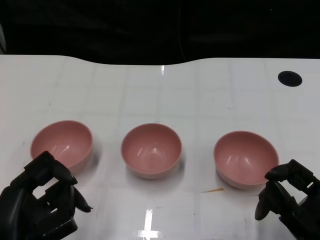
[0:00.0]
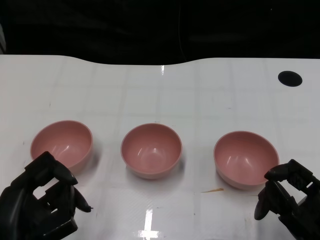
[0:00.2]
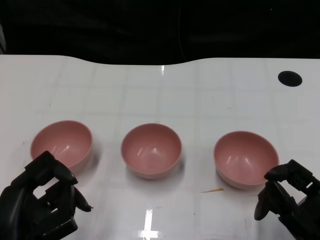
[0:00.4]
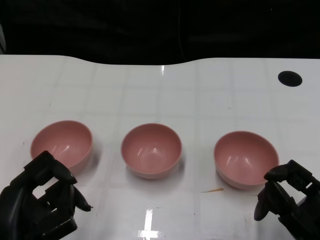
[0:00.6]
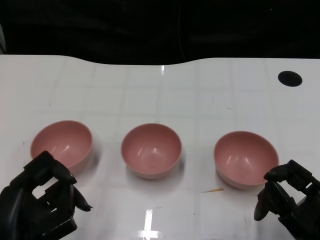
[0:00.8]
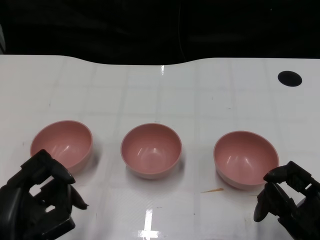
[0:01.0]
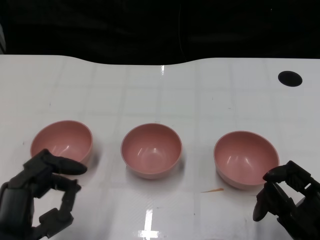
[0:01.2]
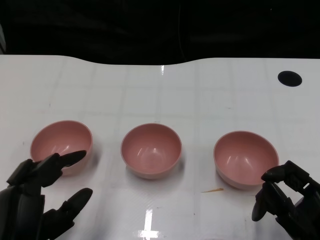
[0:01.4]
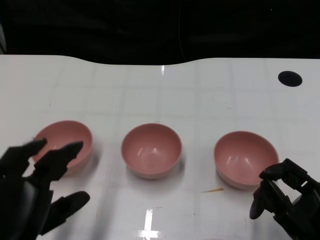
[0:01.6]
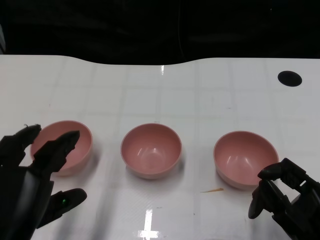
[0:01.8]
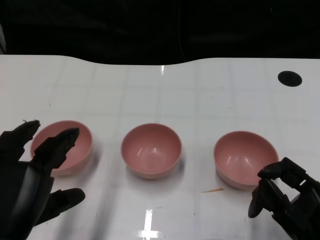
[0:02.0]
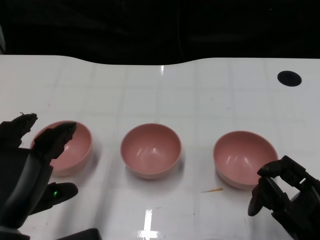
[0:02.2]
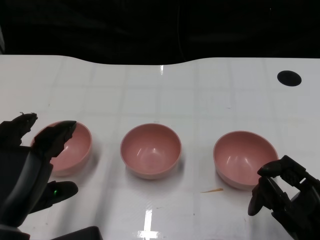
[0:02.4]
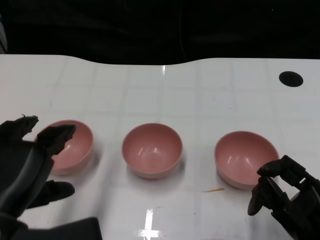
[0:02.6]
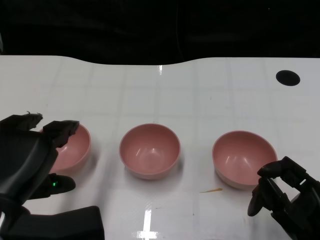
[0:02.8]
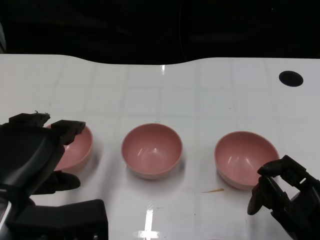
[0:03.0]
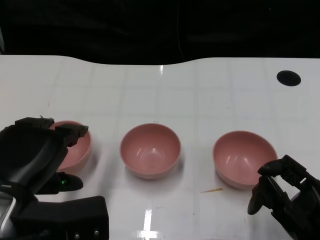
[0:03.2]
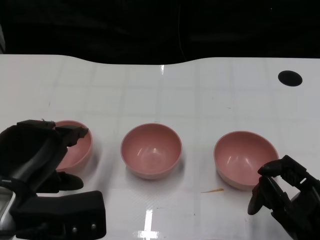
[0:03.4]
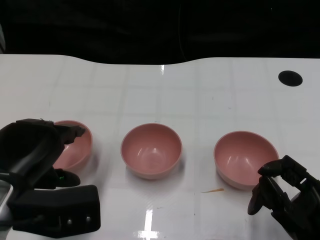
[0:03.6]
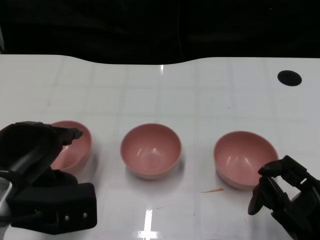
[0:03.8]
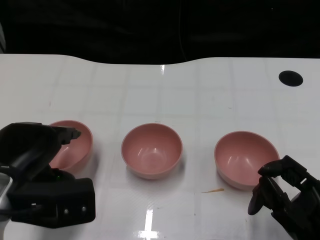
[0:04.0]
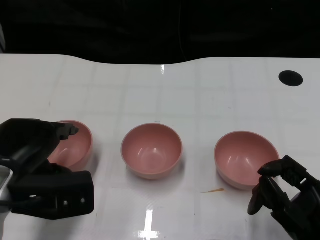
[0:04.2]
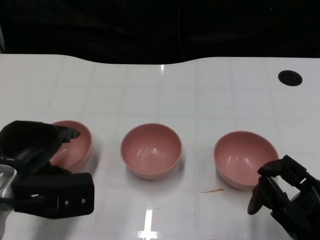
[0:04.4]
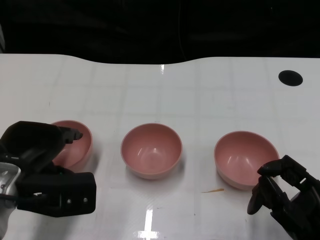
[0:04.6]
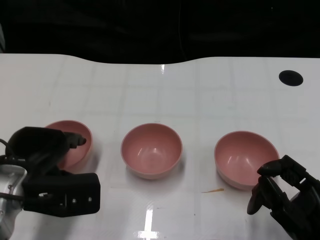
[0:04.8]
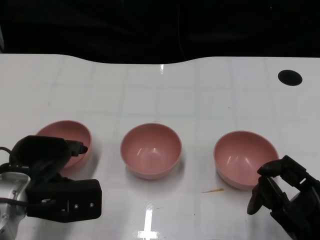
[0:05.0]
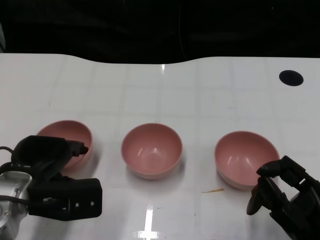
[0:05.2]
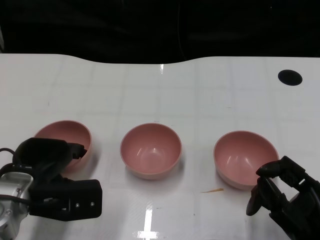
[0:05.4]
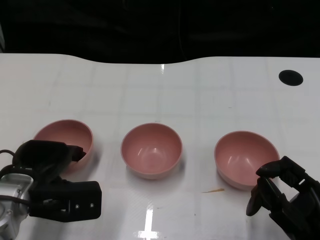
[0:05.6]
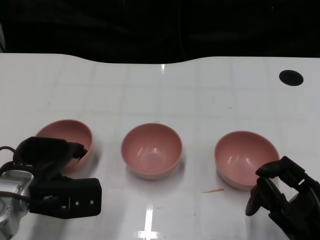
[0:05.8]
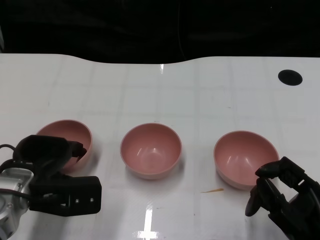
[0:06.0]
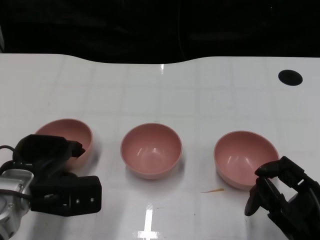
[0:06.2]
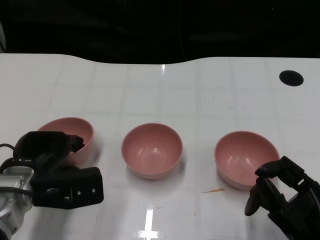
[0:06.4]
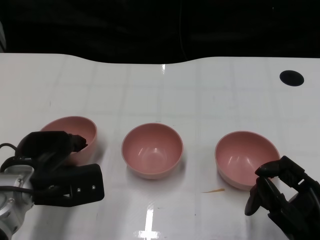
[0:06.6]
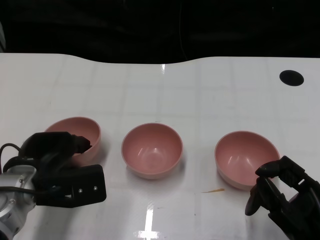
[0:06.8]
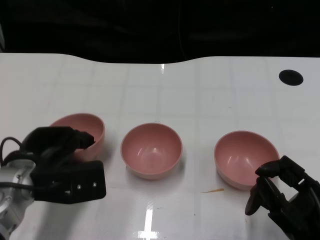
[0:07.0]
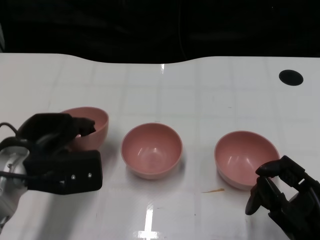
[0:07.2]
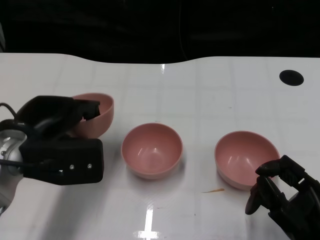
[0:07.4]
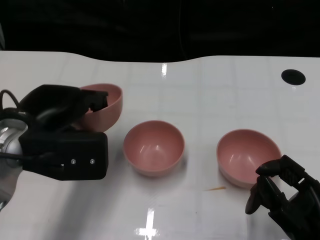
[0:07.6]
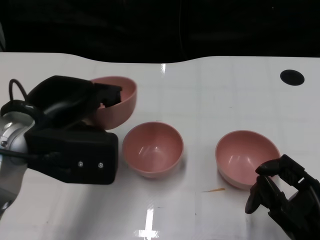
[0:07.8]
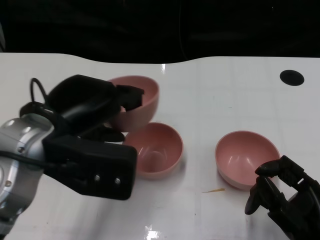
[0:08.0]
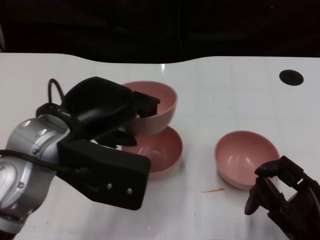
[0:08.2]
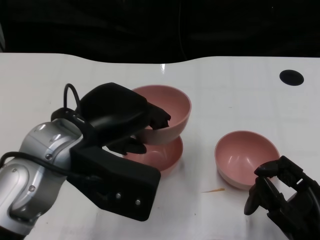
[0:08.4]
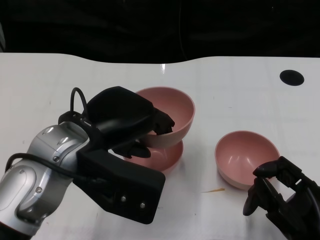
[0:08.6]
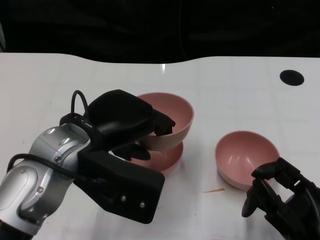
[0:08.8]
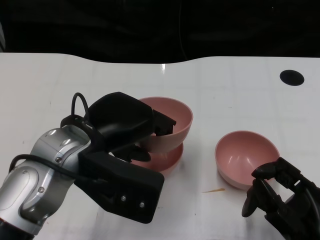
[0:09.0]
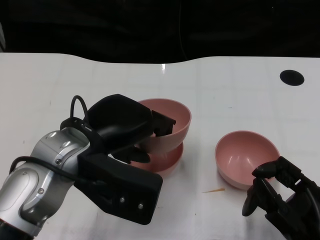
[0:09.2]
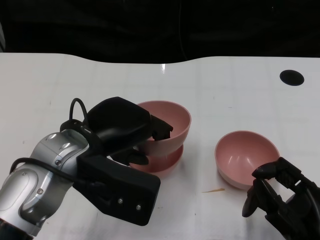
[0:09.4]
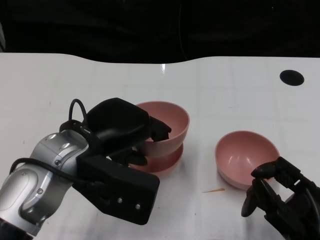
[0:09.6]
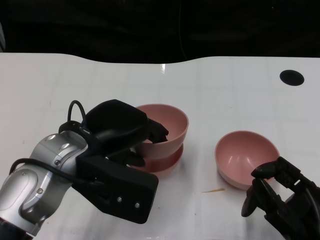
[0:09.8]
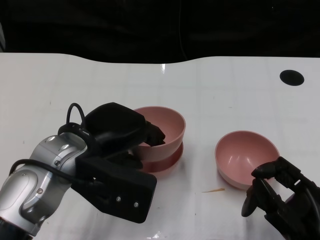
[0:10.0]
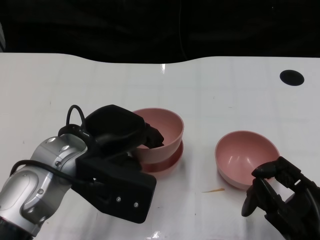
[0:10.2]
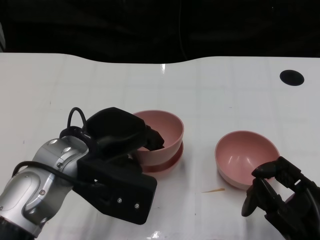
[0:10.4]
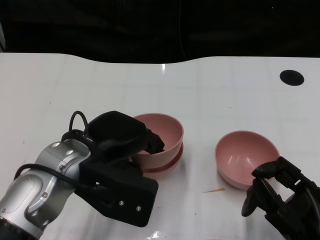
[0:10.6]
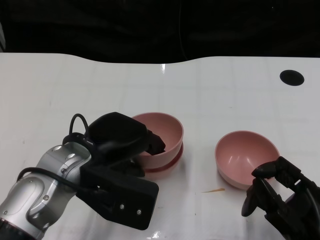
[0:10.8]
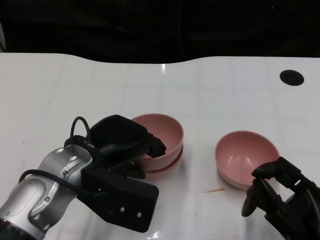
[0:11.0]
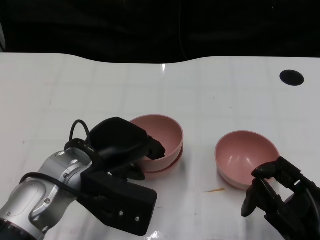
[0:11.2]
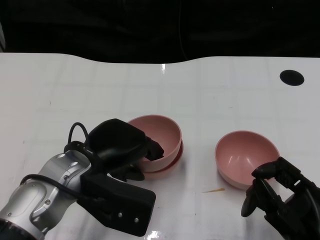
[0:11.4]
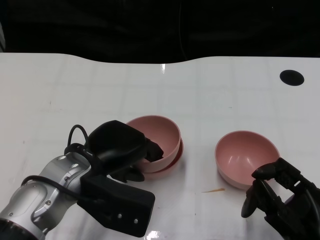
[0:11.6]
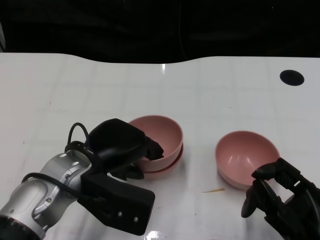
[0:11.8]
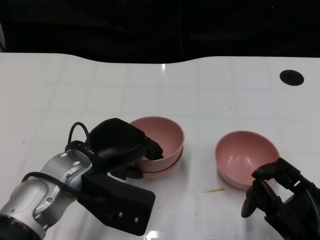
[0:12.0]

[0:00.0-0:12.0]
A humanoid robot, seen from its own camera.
Task of the whole recording: Pick up the bowl on one side of the table and place it on top of the middle bowl, then pick up the bowl on the other side of the table and place it on top of the middle bowls.
Step, 0:01.2 to 0:06.6: Grasp the bowl on the left with the left gripper.
0:01.6 to 0:03.0: The left hand heads upward, covering roughly 5 cm.
0:03.0 to 0:04.4: The left hand heads forward, covering some 5 cm.
0:04.4 to 0:06.0: The left hand shifts by roughly 5 cm.
0:06.0 to 0:07.6: The left hand shifts some 10 cm upward.
0:07.6 to 0:09.0: The left hand heads to the right, covering some 5 cm.
0:09.0 to 0:10.4: The hands stay close to where they were, moving slightly.
0:10.4 to 0:12.0: The hands move only a little.

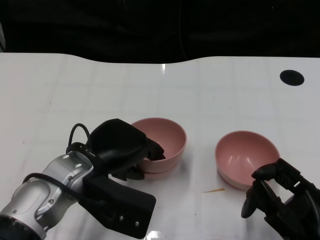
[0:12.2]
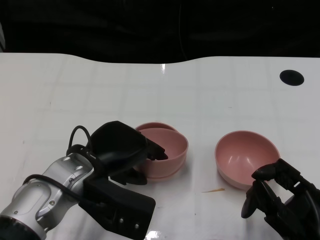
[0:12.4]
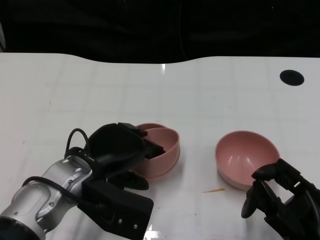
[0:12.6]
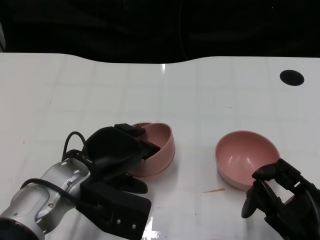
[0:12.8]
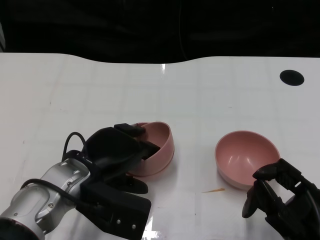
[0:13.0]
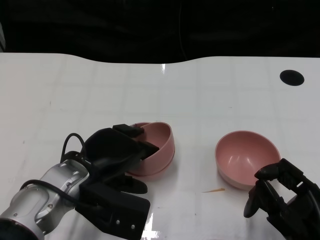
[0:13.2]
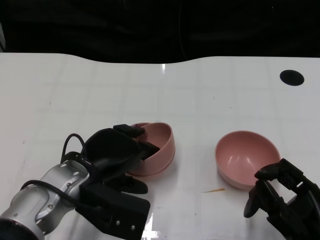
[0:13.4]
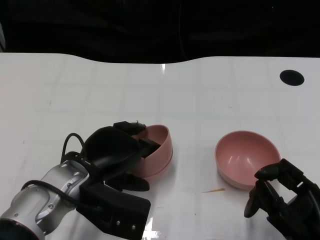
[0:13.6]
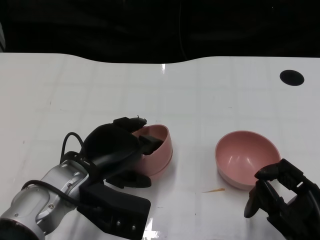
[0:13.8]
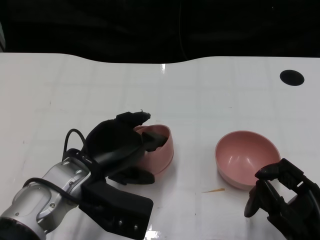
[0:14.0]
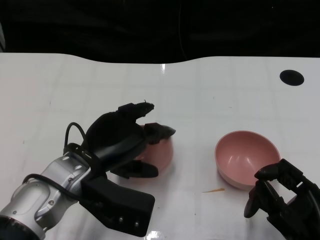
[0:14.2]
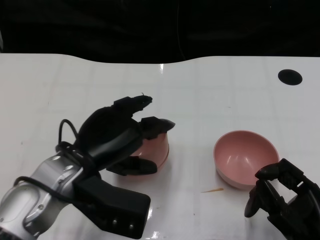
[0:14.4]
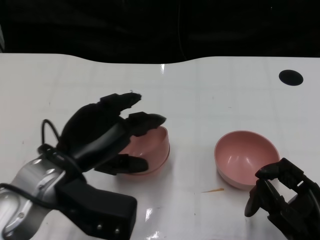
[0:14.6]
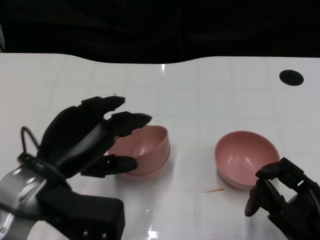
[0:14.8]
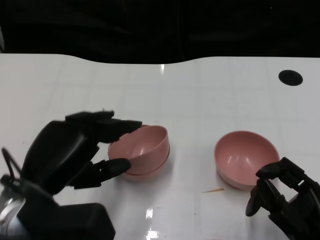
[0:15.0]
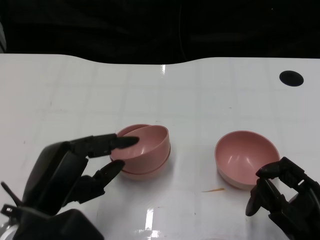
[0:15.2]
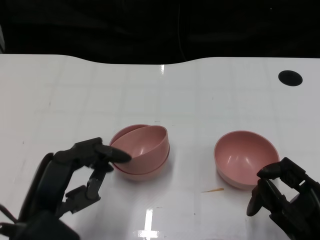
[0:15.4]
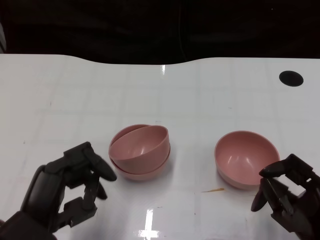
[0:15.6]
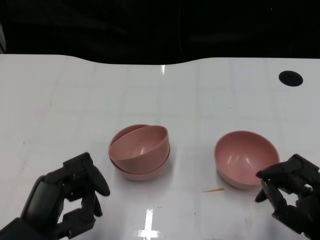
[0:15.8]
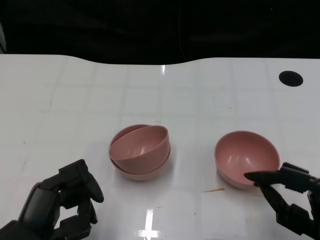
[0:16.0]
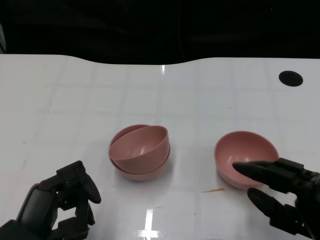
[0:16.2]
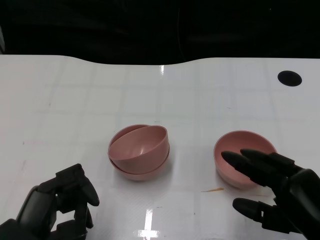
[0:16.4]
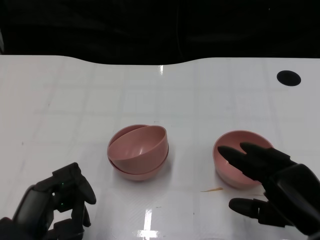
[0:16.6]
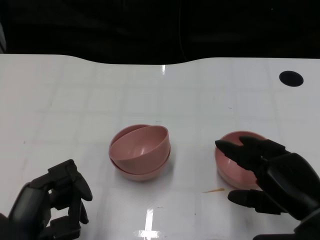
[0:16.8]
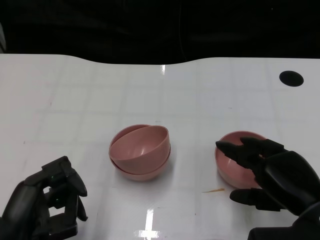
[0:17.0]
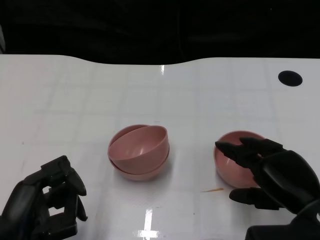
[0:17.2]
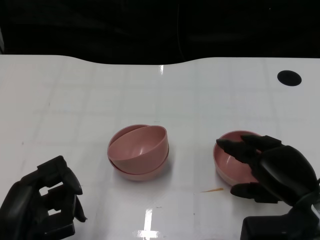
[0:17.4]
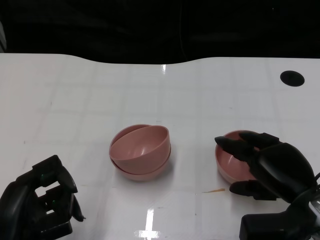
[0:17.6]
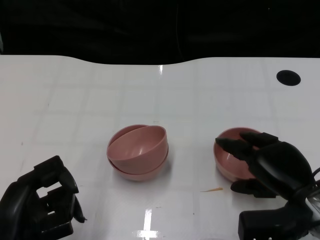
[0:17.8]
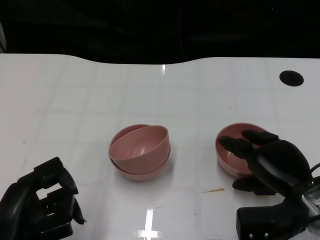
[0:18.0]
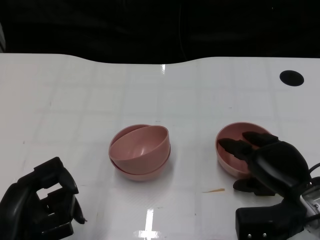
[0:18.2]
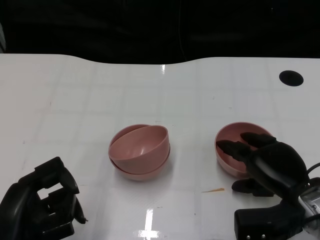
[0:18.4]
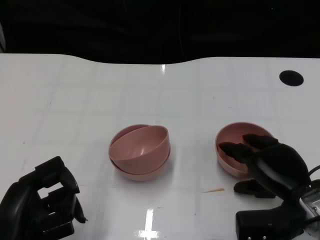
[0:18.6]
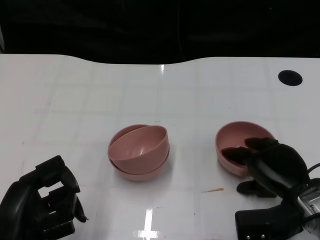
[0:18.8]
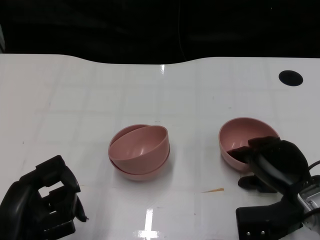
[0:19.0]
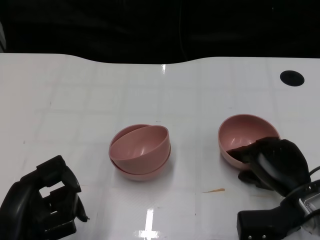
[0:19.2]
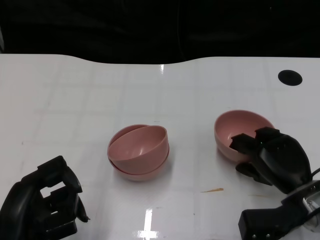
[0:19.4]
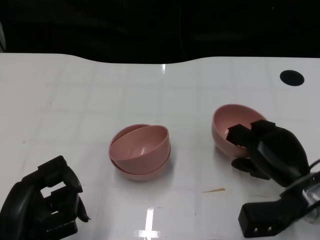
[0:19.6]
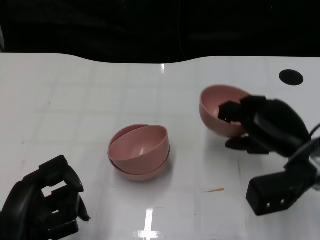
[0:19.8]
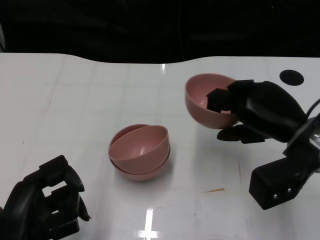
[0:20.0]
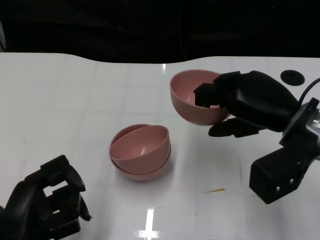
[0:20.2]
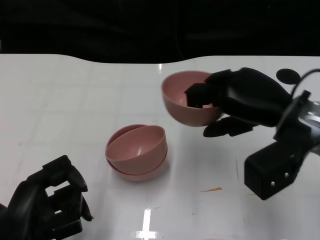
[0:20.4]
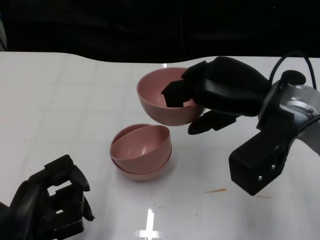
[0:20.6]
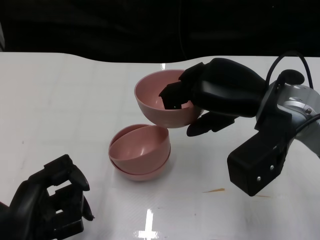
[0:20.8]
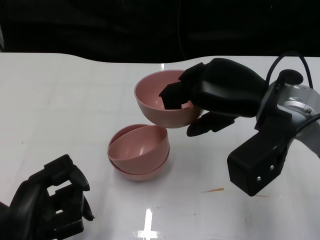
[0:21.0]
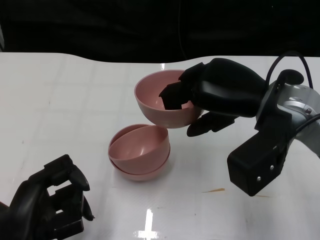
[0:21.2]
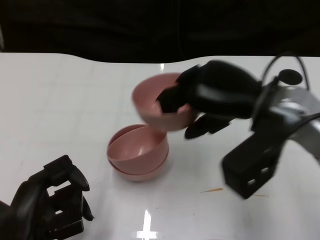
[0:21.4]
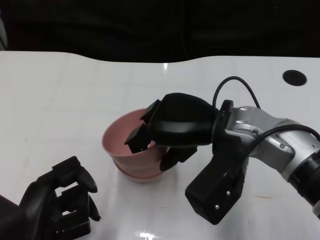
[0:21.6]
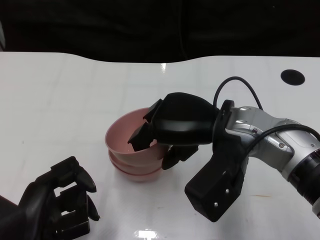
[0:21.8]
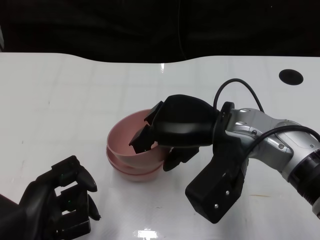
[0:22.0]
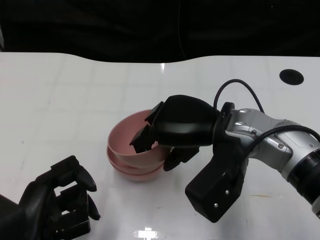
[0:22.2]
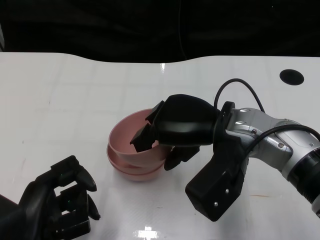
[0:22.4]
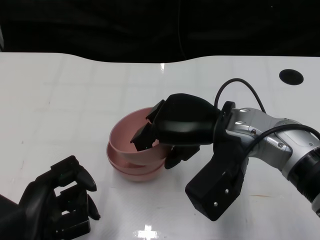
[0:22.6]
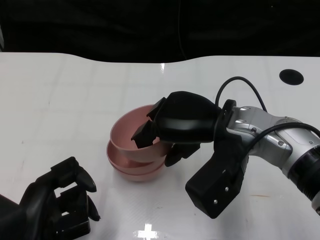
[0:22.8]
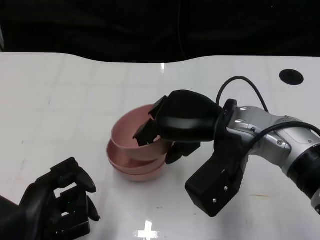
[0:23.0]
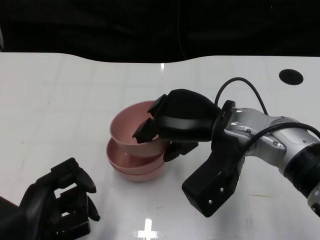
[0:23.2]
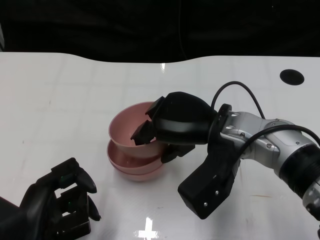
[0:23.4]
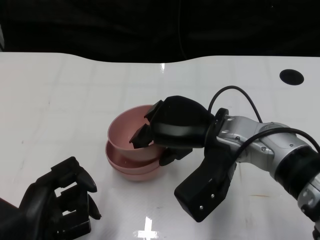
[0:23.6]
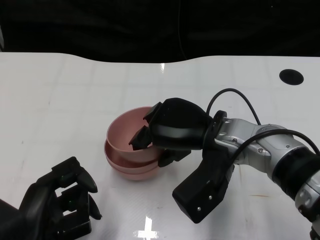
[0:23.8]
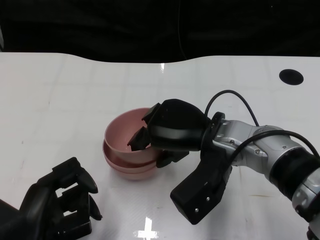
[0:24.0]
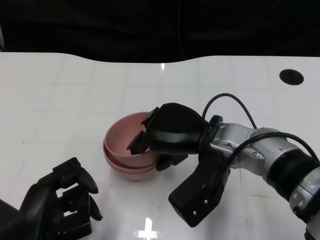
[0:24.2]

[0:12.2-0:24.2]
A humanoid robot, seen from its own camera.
Task of the whole recording: Pick up the bowl on one side of the table and place it on top of the middle bowl, then pick up the bowl on the other side of the table and place it on top of the middle bowls.
Step, 0:12.2 to 0:14.6: Place the bowl on the left onto the bowl in the middle with left gripper.
Step, 0:15.0 to 0:19.4: Grasp the bowl on the right with the right gripper.
0:12.2 to 0:13.8: The hands make only small movements.
0:13.8 to 0:15.2: The left hand heads backward, covering approximately 10 cm.
0:15.2 to 0:16.6: The left hand moves some 5 cm.
0:16.6 to 0:18.2: The right hand travels forward by some 5 cm.
0:18.2 to 0:19.8: The right hand ends up some 5 cm from where it was.
0:19.8 to 0:21.2: The right hand moves upward and to the left, about 10 cm.
0:21.2 to 0:22.6: The right hand shifts about 5 cm to the left.
0:22.6 to 0:24.2: The hands make only small movements.
